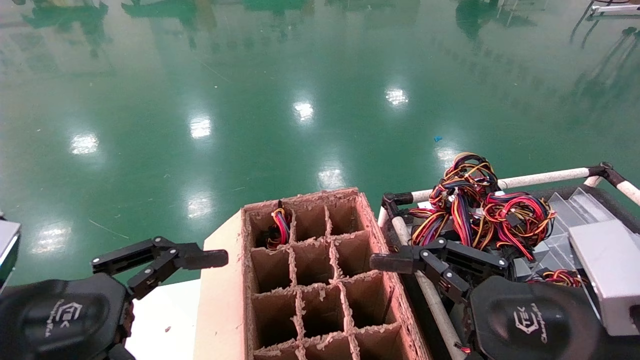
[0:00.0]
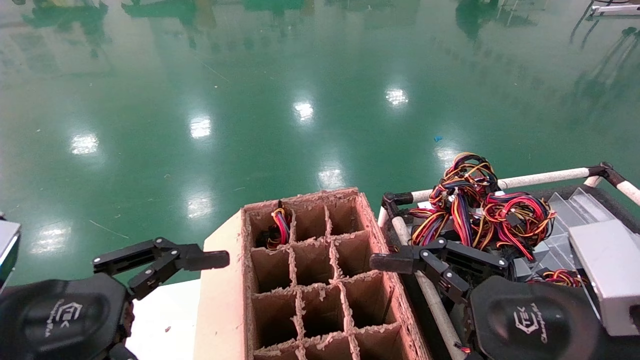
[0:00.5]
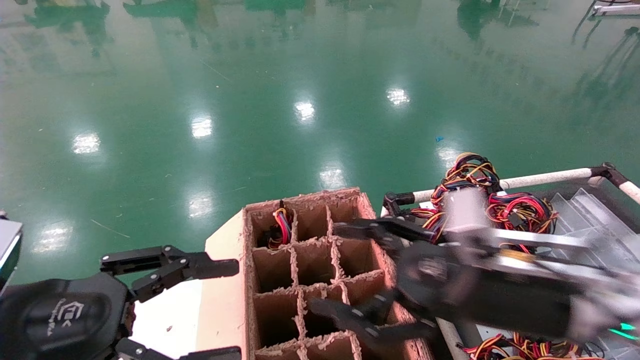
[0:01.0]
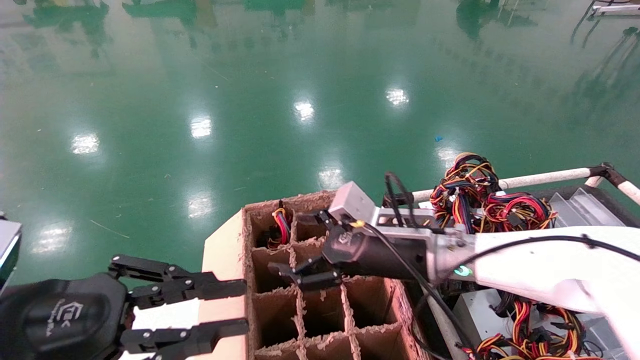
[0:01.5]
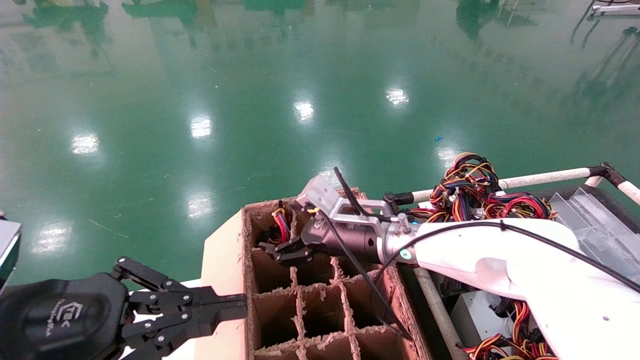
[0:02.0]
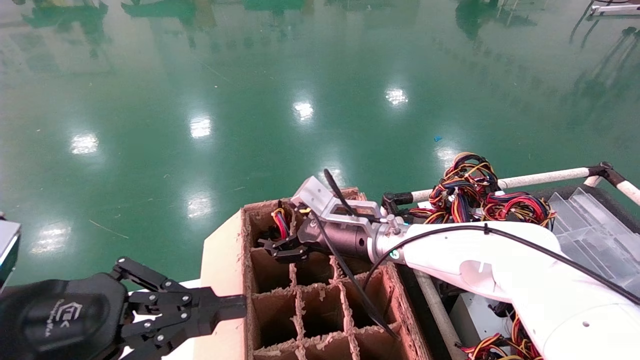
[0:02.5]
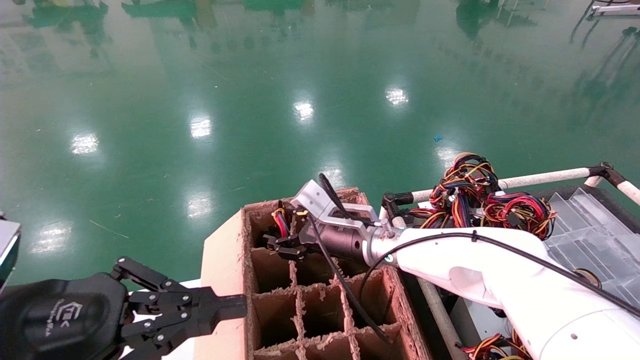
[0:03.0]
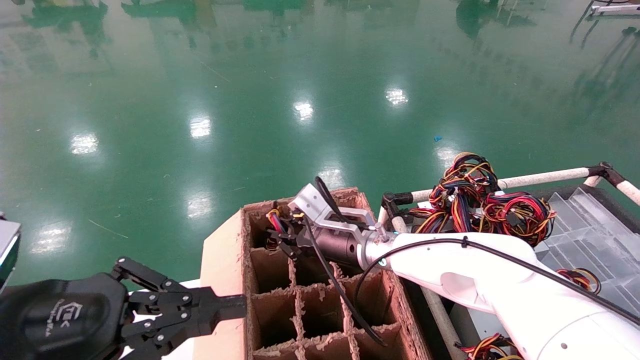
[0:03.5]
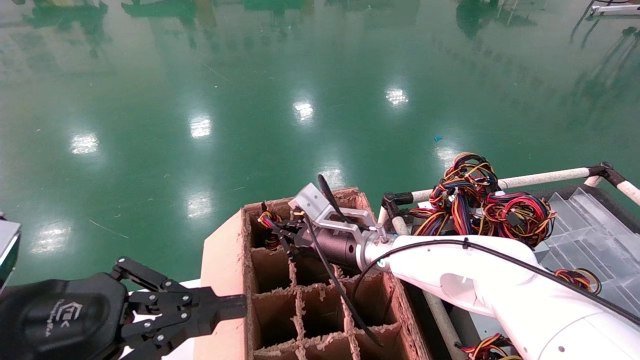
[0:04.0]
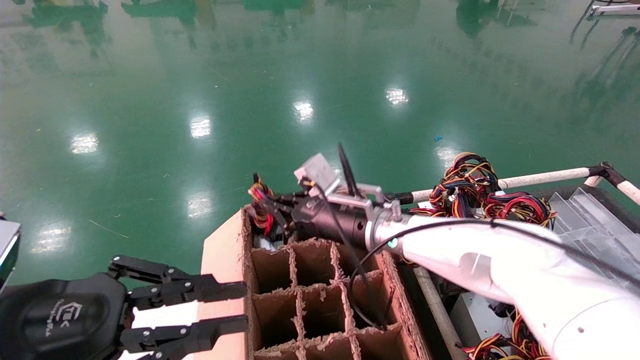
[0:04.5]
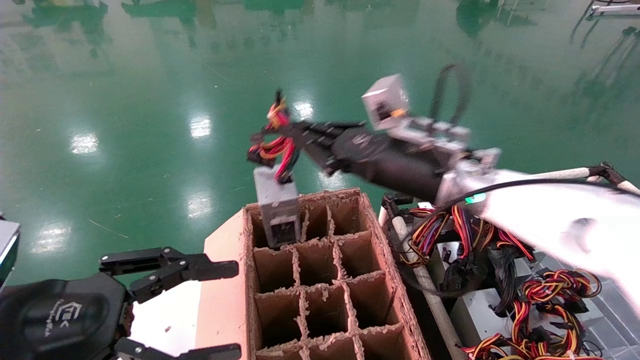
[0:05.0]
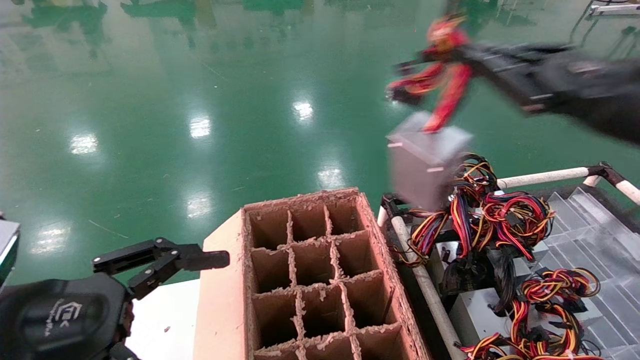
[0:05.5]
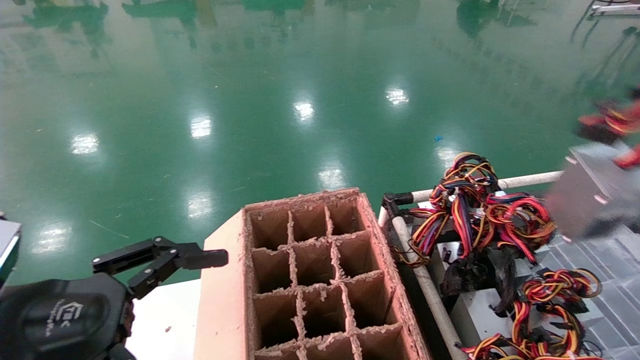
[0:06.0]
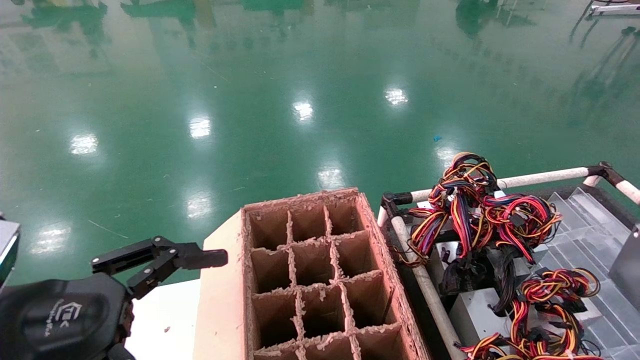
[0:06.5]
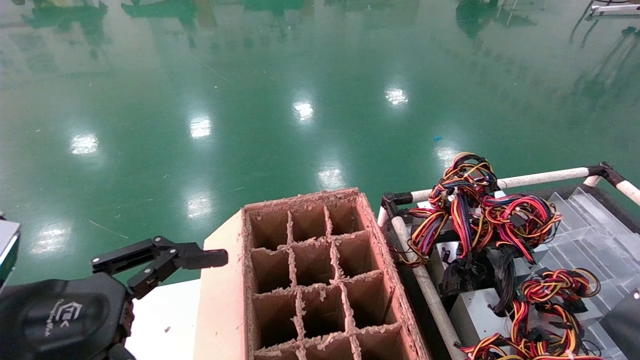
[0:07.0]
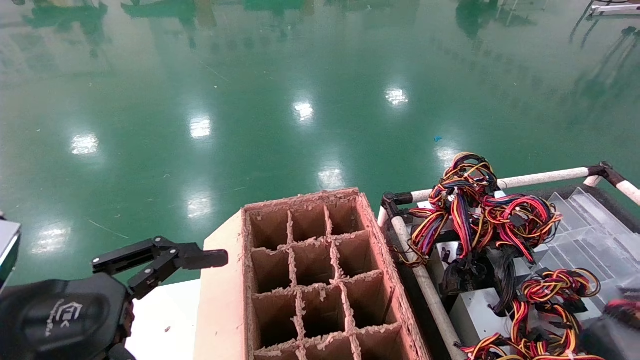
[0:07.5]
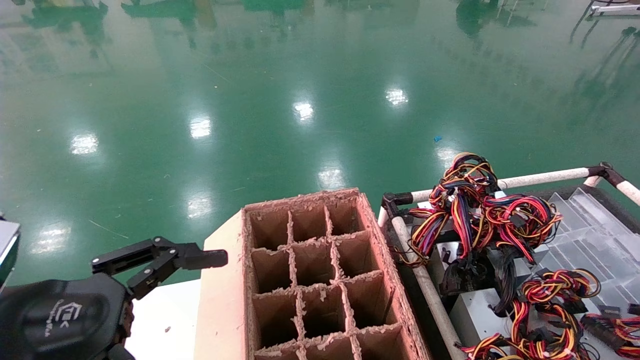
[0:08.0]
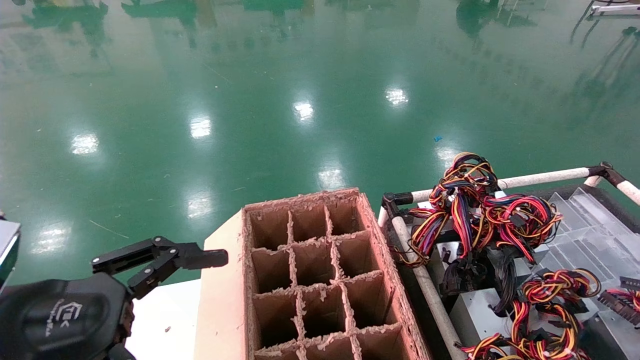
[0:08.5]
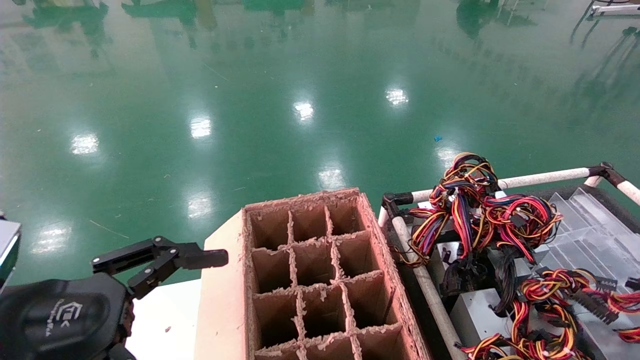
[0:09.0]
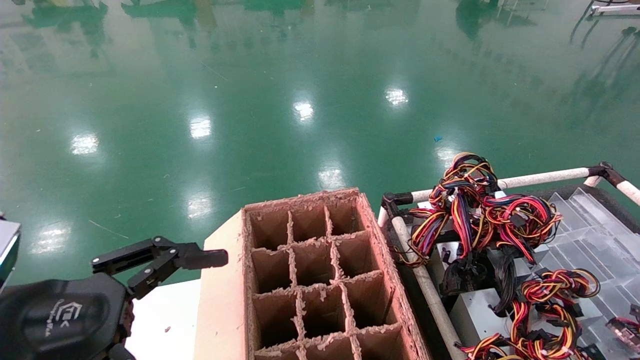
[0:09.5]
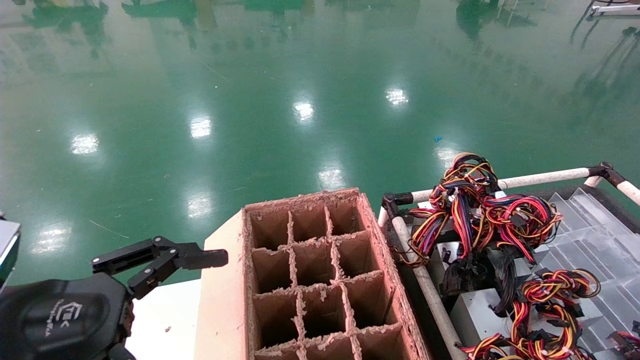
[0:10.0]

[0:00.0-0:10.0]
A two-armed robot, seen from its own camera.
Step, 0:01.0 to 0:03.5: Grab and lift the power supply from the large box.
0:00.0 to 0:02.0: The right gripper moves forward and to the left, about 30 cm. The left gripper closes its fingers.
0:02.0 to 0:04.0: The right gripper closes.
0:04.0 to 0:06.0: The left gripper opens up; the right gripper travels to the right and backward by some 50 cm.
0:06.0 to 0:08.0: The right gripper moves downward, about 15 cm.
0:08.0 to 0:10.0: The right gripper is displaced downward by roughly 10 cm.

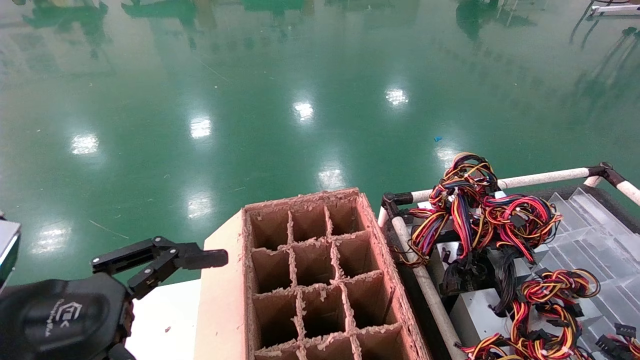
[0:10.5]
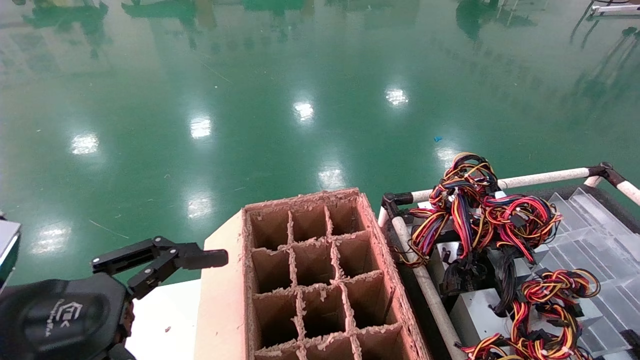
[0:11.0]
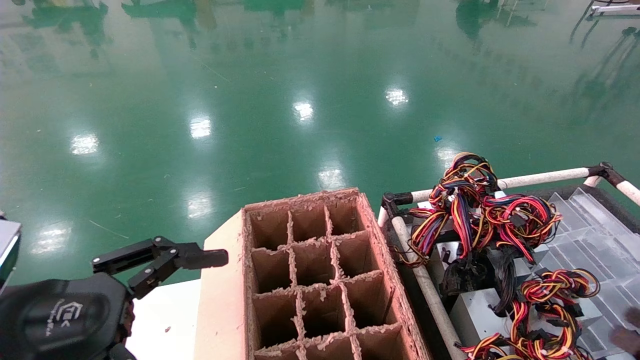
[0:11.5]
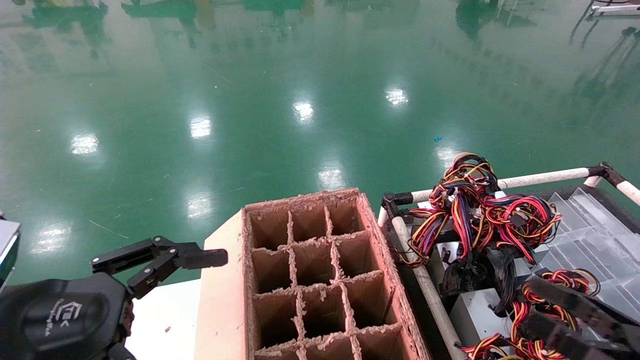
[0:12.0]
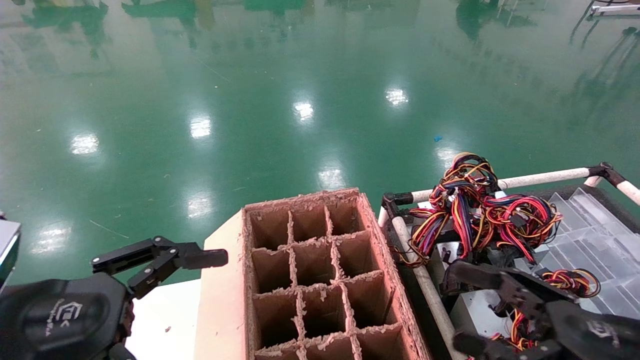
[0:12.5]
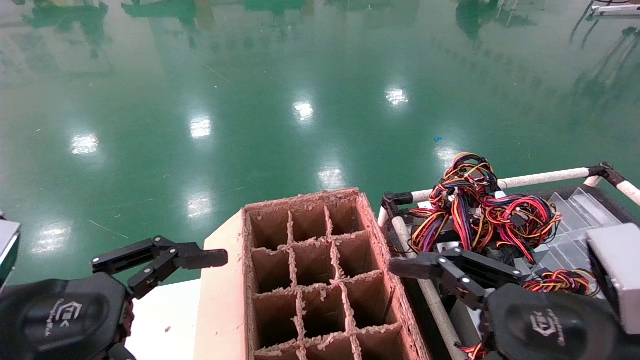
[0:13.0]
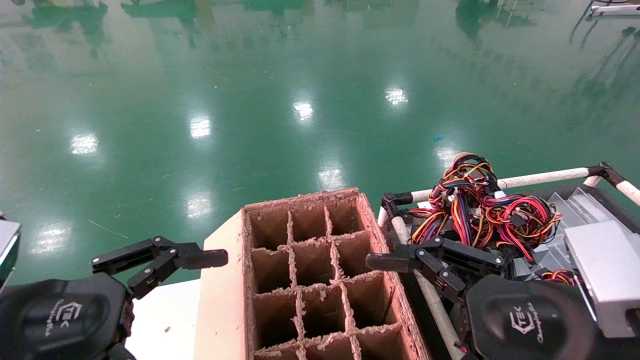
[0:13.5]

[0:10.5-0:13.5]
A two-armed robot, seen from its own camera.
0:10.5 to 0:12.0: The right gripper goes some 20 cm to the left and forward, and opens.
0:12.0 to 0:13.5: The right gripper goes roughly 20 cm to the left and upward.
